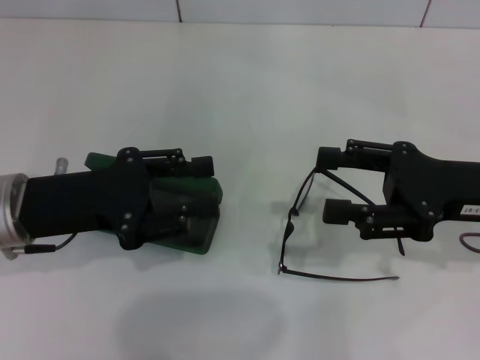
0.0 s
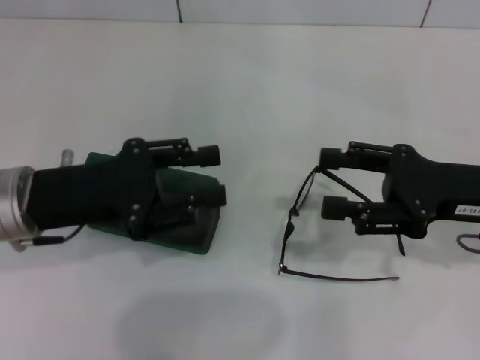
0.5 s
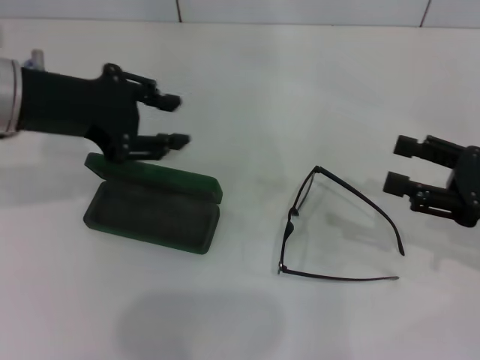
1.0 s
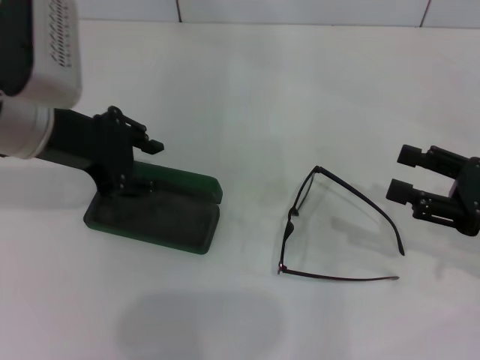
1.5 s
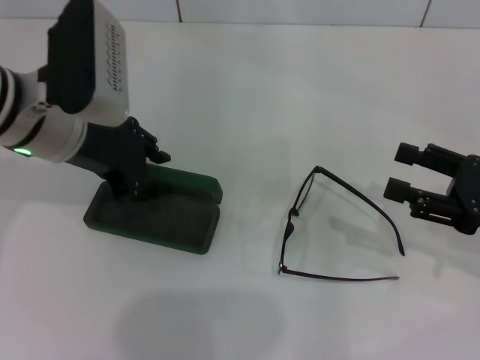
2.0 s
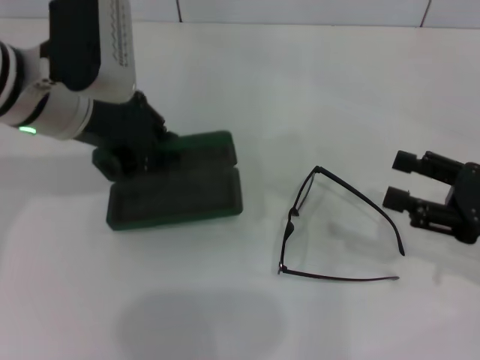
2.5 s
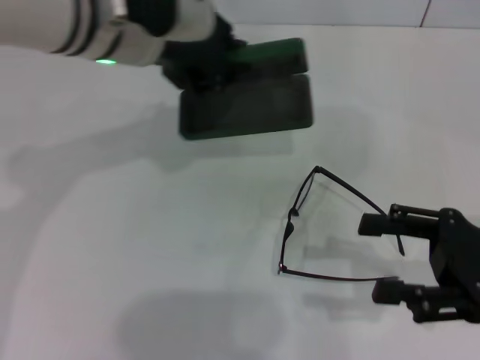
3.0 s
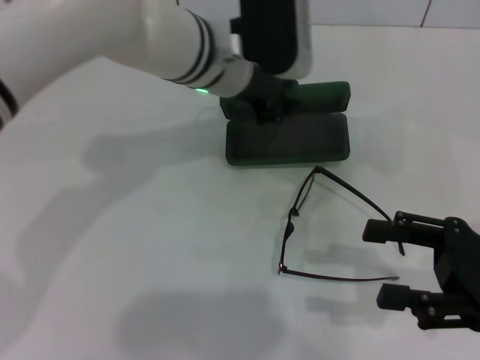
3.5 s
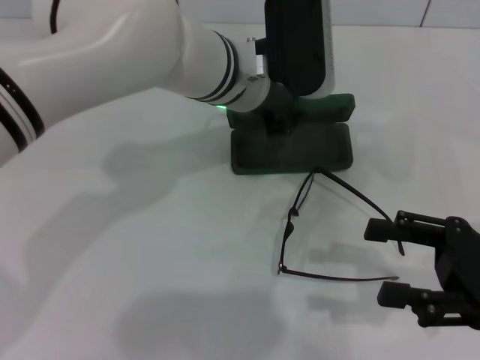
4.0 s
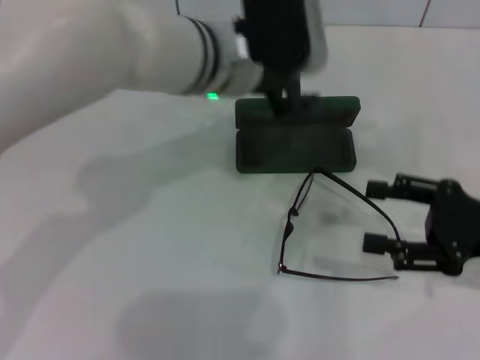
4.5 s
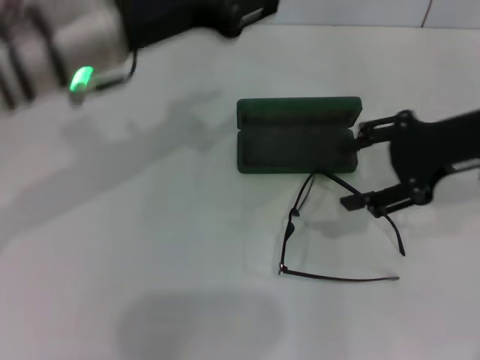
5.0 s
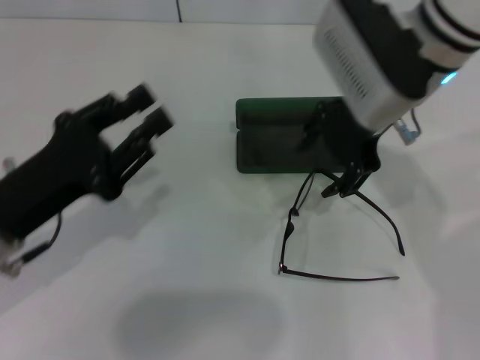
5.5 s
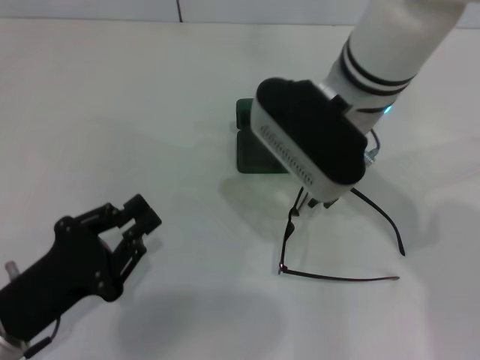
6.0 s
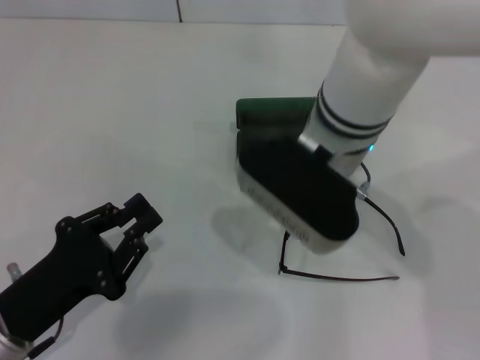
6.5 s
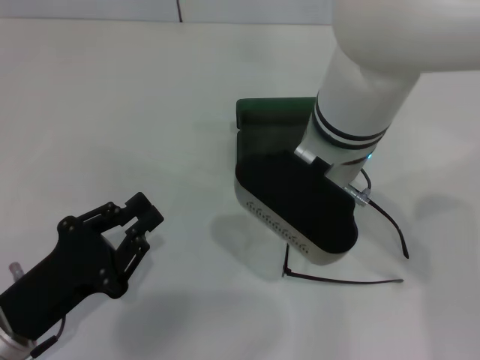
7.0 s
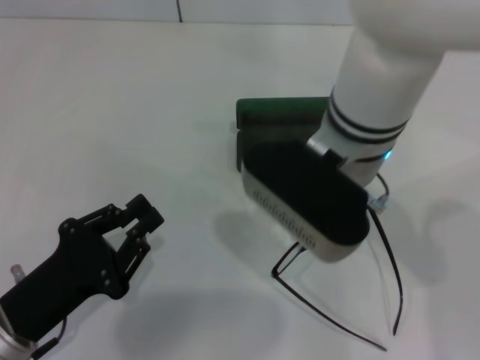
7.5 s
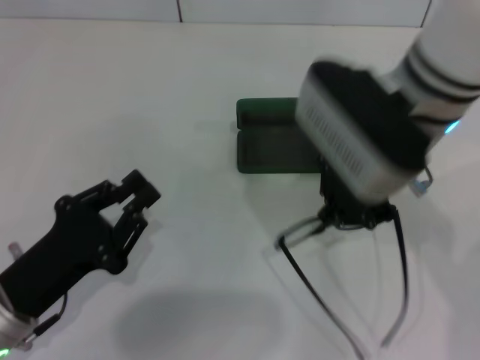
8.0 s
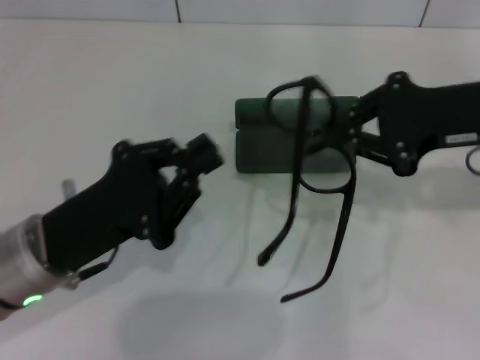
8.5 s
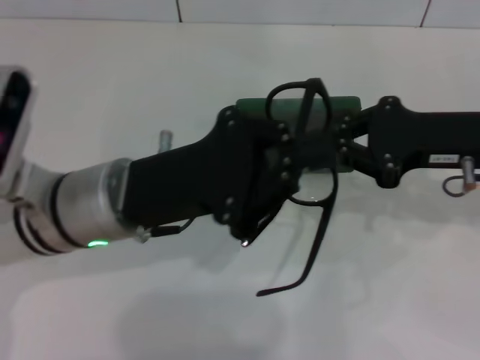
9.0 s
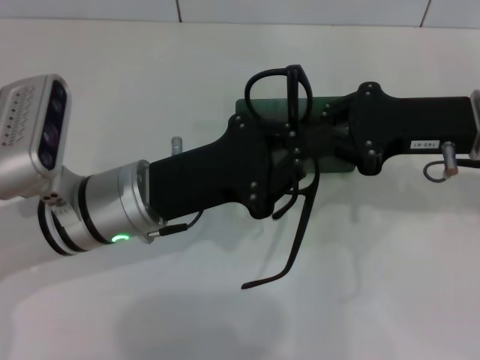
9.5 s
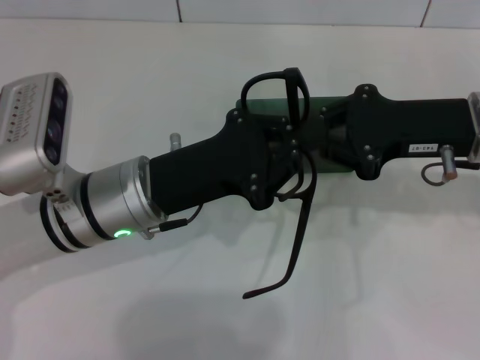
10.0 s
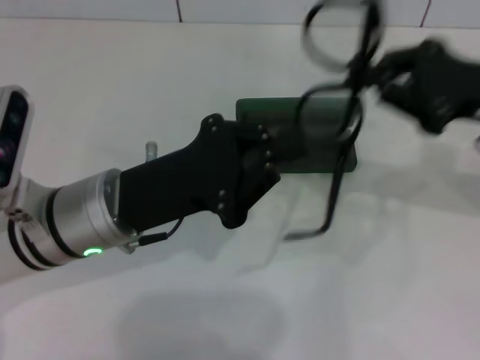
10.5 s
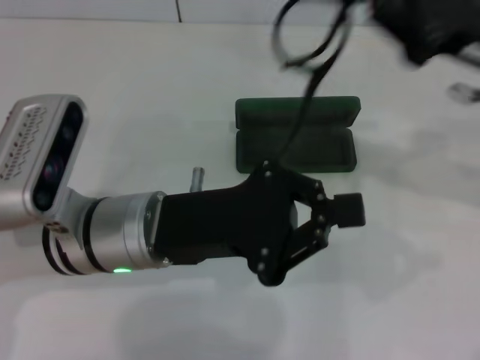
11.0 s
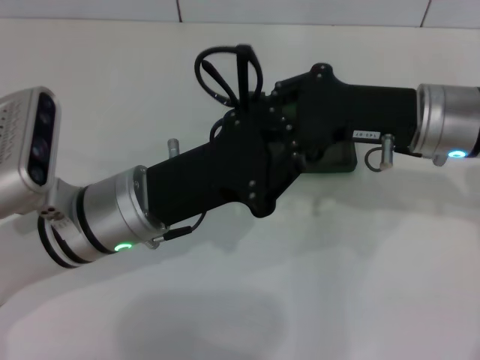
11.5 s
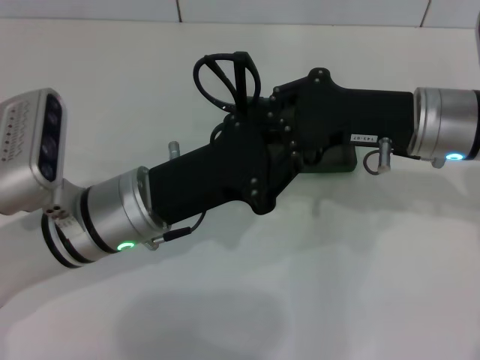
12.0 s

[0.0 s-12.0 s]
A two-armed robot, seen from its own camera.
Step, 0.0 to 2.0 s: Grab the glasses case with your left hand.
Step, 2.5 to 4.0 s: Place the glasses case in the center of the table with your left hand.
Step, 4.5 to 7.0 s: Grab the eyeglass frame with your right hand.
0.0 to 2.0 s: The left gripper shifts about 10 cm forward and upward; the right gripper travels to the right by roughly 5 cm.
2.0 to 4.0 s: The left gripper moves to the right, about 15 cm, and closes.
4.0 to 6.0 s: The left gripper travels backward, to the left and downward by roughly 35 cm, and opens and closes again. The right gripper moves to the left, forward and upward, about 30 cm.
6.0 to 8.0 s: The right gripper changes place by approximately 5 cm, and closes.
8.0 to 10.0 s: The right gripper moves to the right and downward, roughly 15 cm. The left gripper goes about 15 cm forward, to the right and upward.

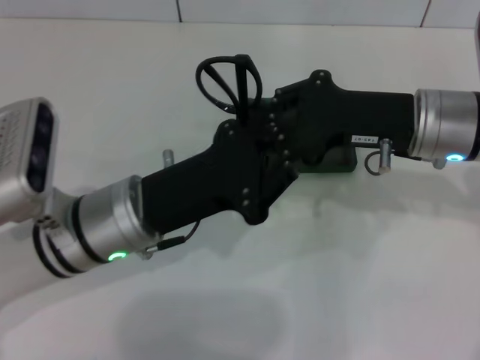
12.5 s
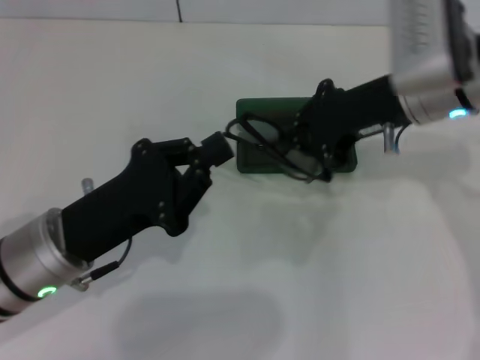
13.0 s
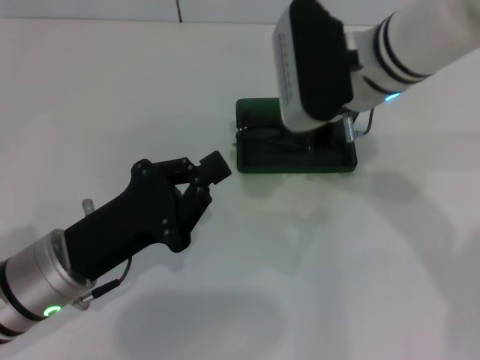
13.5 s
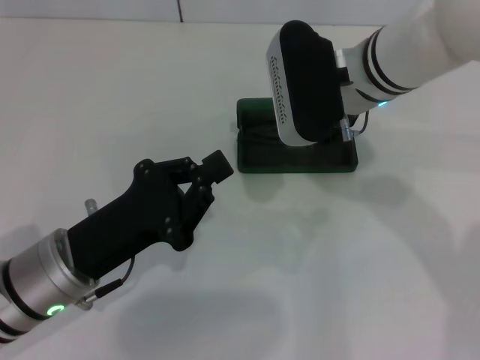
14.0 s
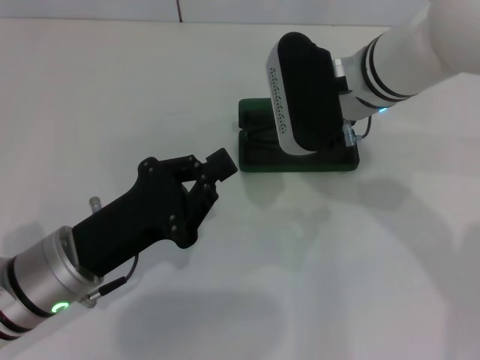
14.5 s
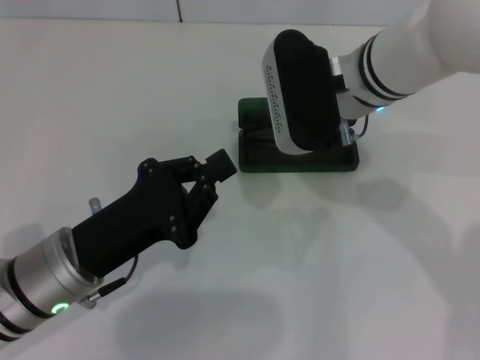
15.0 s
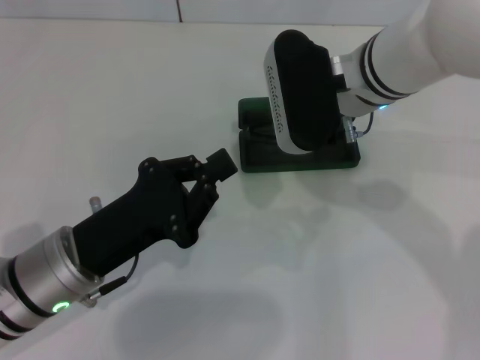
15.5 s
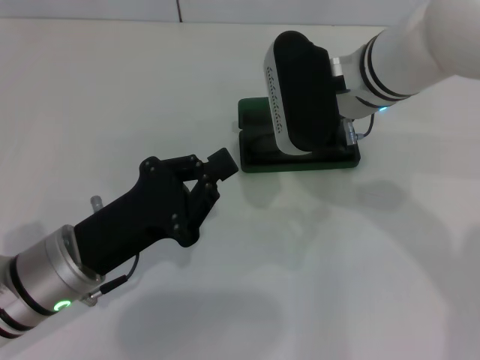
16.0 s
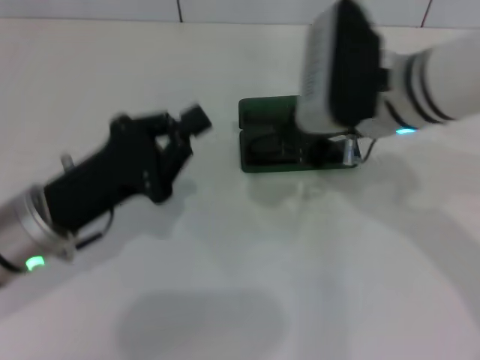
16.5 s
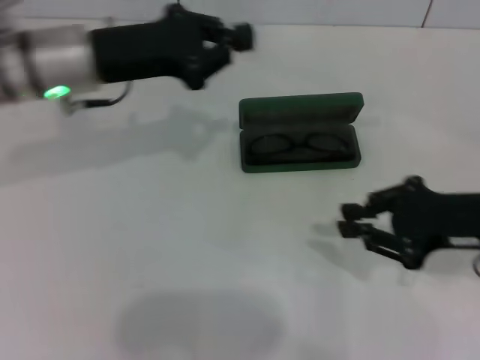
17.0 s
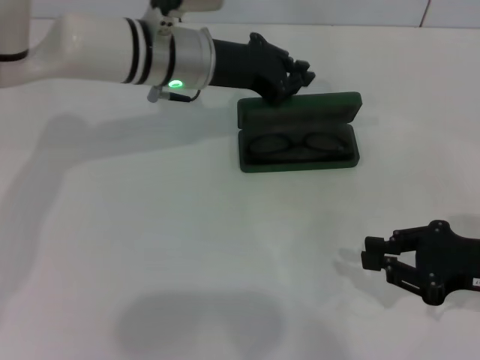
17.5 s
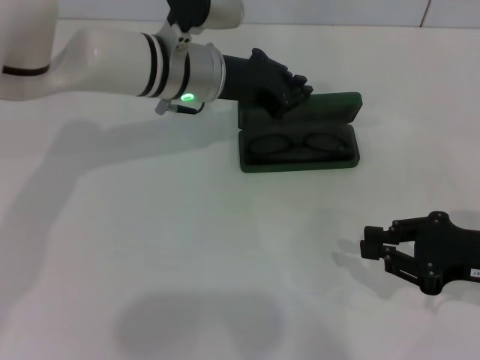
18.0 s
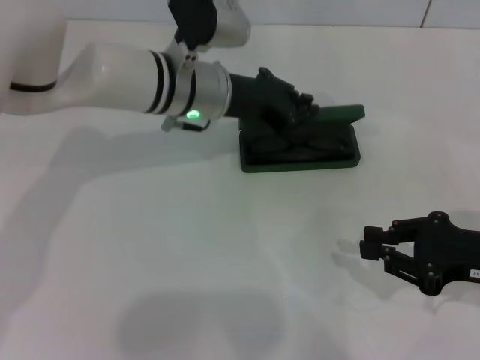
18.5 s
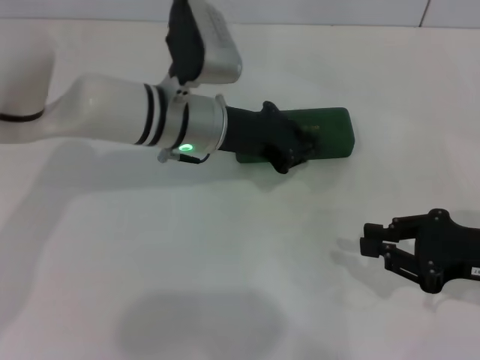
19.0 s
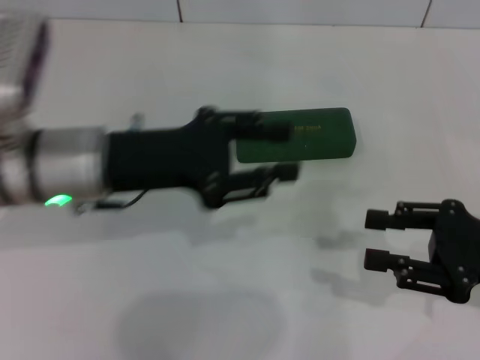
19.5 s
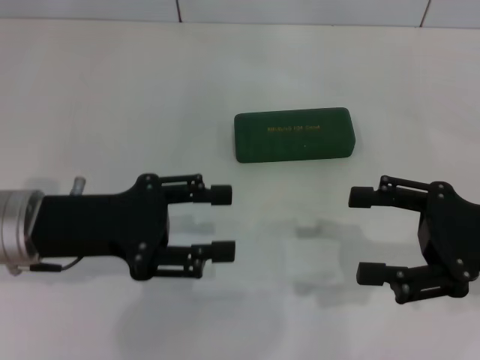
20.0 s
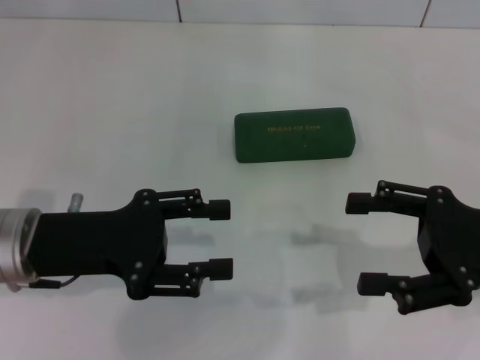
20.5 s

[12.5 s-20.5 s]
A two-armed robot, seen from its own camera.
Step, 12.5 to 15.5 s: Put the glasses into the case with your right hand.
Step, 16.0 to 18.5 s: Close the glasses case with your left hand.
12.5 to 14.5 s: The left gripper shifts by roughly 5 cm. The right gripper goes roughly 10 cm to the left.
16.5 to 18.5 s: The right gripper shifts approximately 20 cm to the right, backward and downward, while the left gripper heads forward and to the right, covering about 20 cm.
18.5 to 20.5 s: The right gripper moves upward, some 5 cm, and opens its fingers, while the left gripper moves backward and to the left, approximately 20 cm, and opens up.

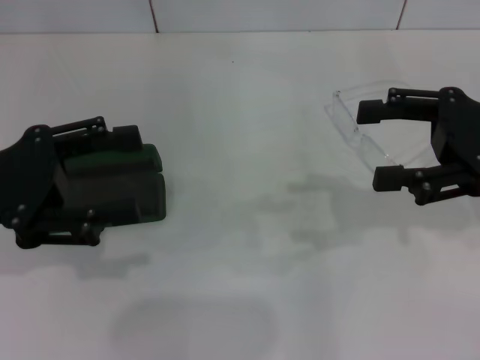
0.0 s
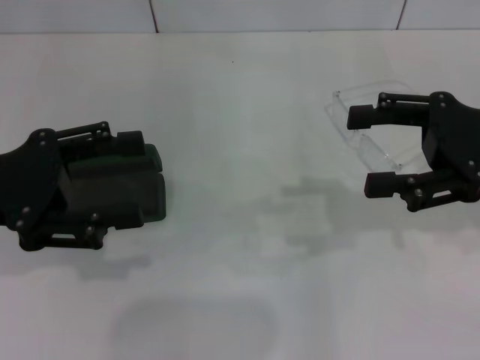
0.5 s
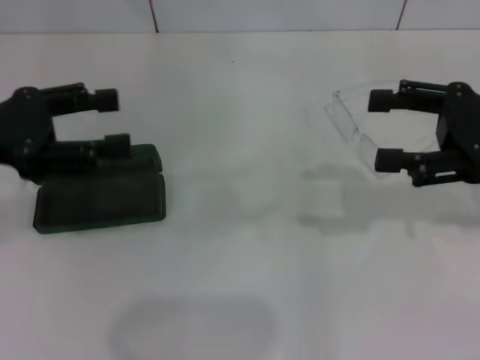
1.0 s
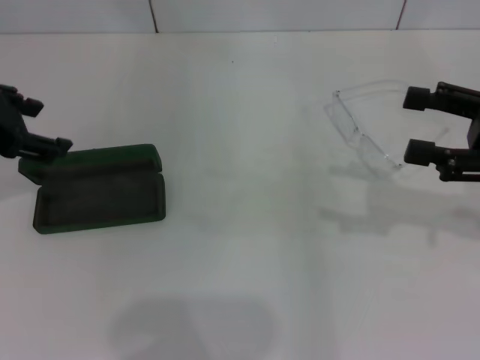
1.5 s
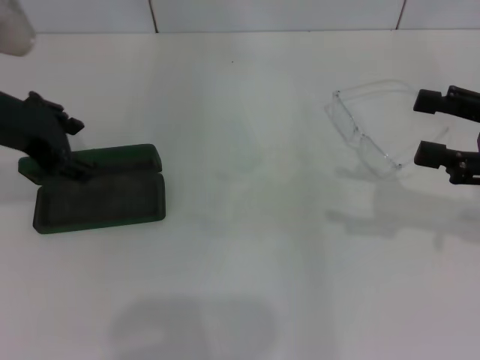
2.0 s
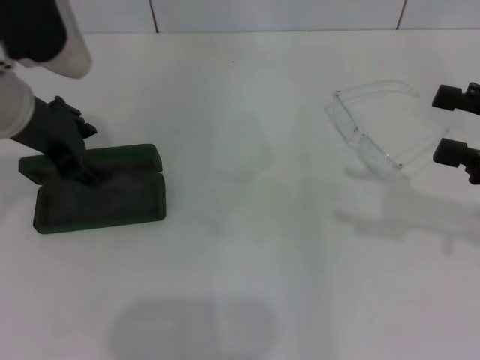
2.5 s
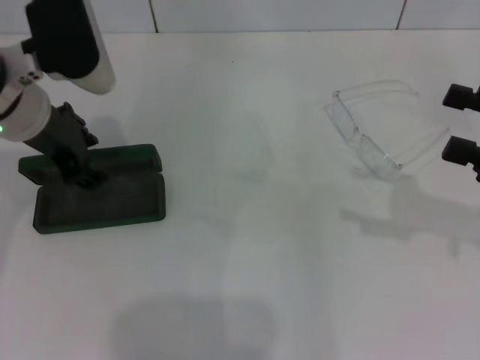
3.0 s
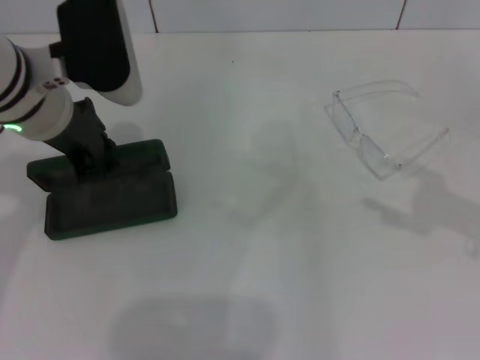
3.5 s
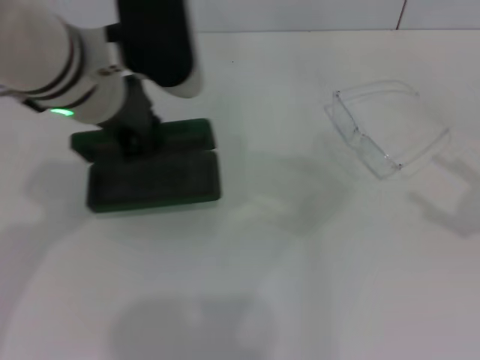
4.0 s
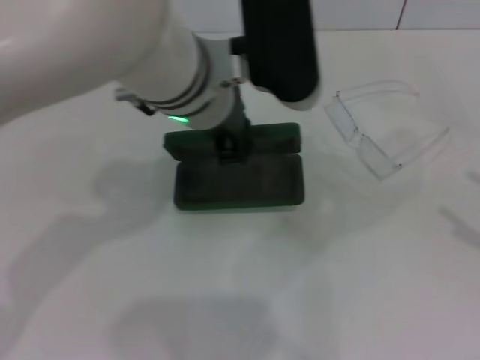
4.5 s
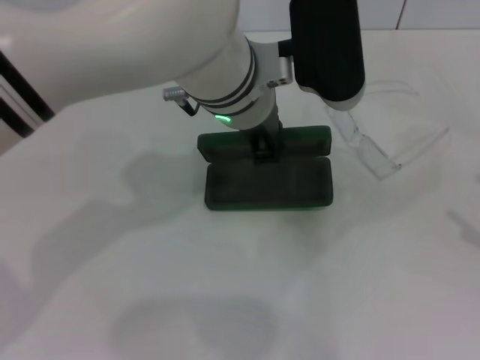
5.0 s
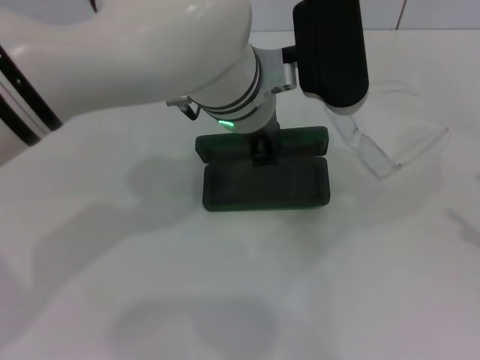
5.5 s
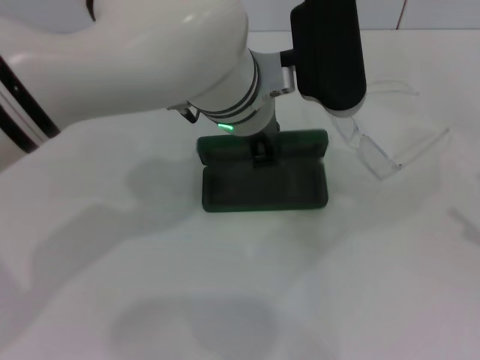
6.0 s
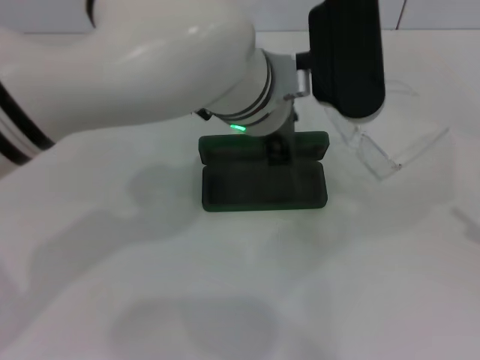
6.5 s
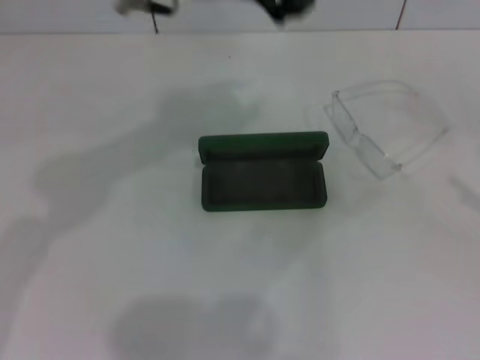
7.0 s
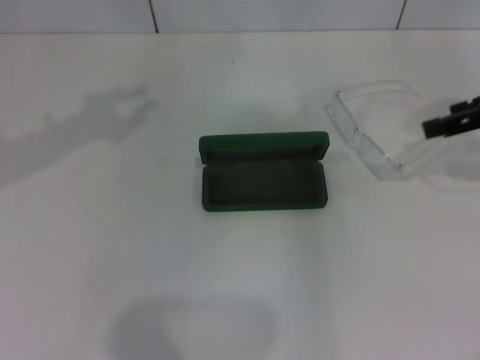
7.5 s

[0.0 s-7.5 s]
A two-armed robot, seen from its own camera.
Step, 0.0 to 3.5 s: Grab the glasses case with your left hand.
Step, 4.0 to 6.0 s: Place the glasses case in the center of the table with your left hand.
0.0 to 2.0 s: The left gripper heads forward, covering about 10 cm, while the right gripper shifts by roughly 5 cm.
2.0 to 4.0 s: The left gripper travels to the right by roughly 10 cm, and closes. The right gripper goes some 10 cm to the right and backward.
4.0 to 5.5 s: The right gripper moves approximately 5 cm; the left gripper goes some 10 cm to the right.
5.5 to 7.5 s: The right gripper shifts about 25 cm forward, to the left and upward. Meanwhile the left gripper heads to the left and upward, covering roughly 25 cm.
